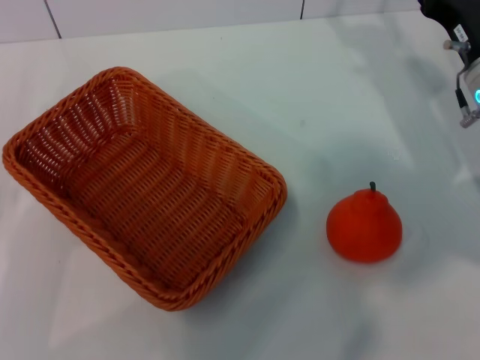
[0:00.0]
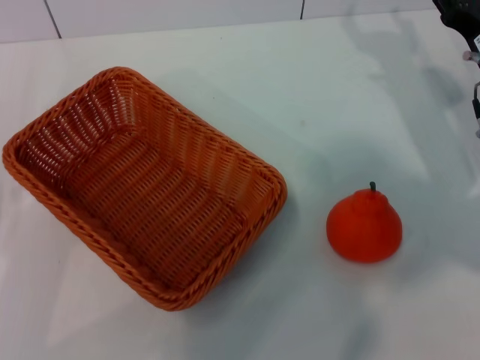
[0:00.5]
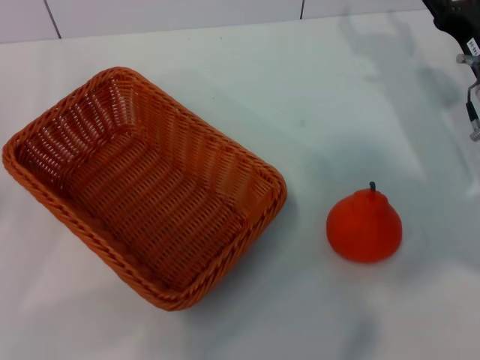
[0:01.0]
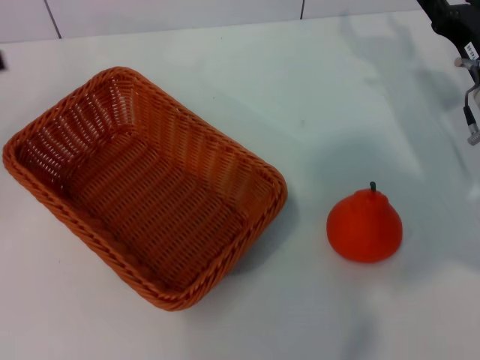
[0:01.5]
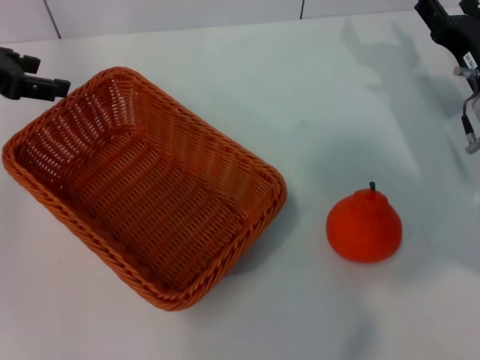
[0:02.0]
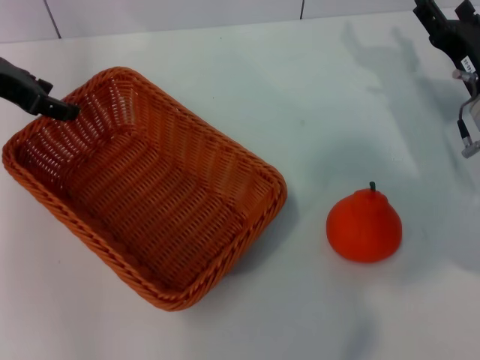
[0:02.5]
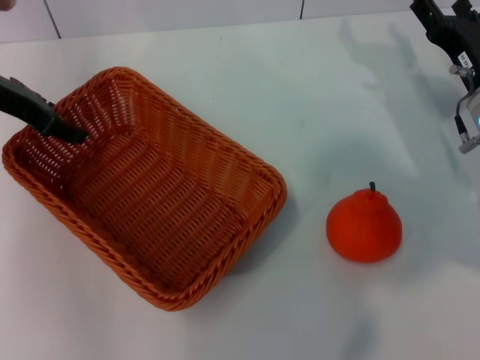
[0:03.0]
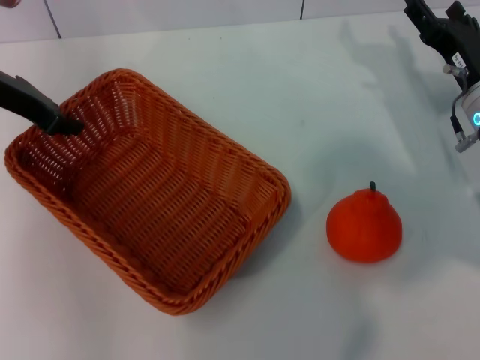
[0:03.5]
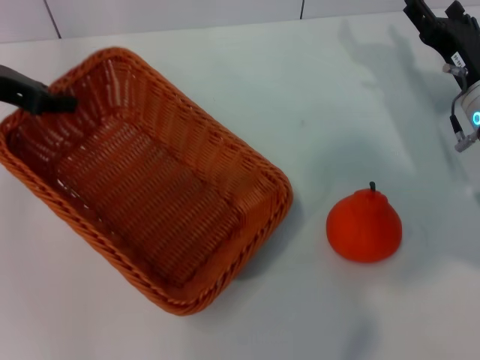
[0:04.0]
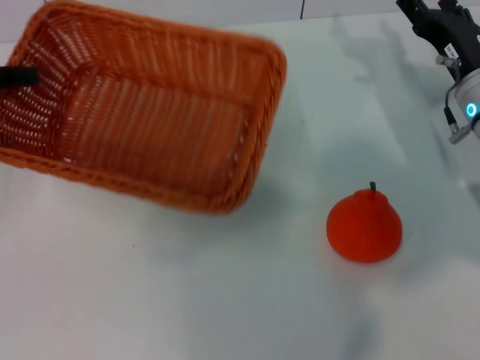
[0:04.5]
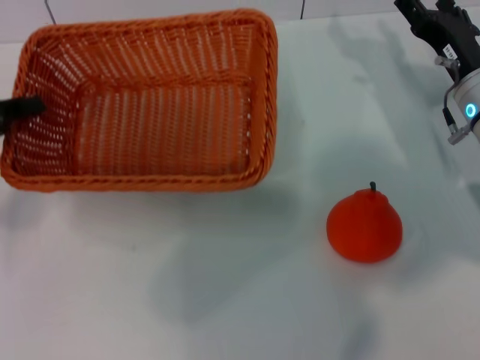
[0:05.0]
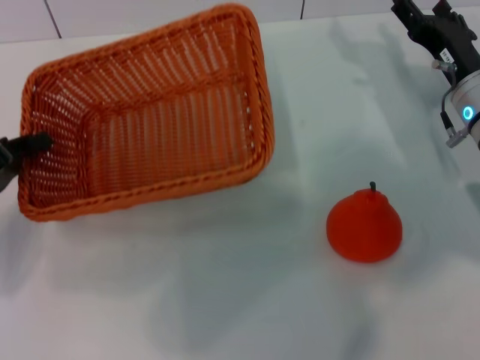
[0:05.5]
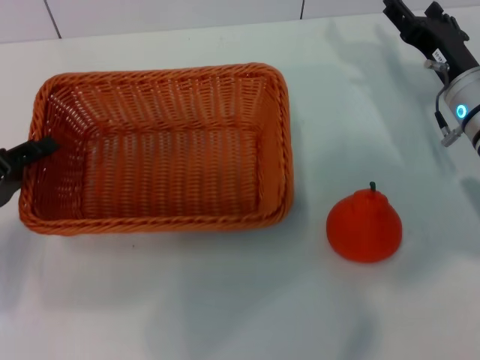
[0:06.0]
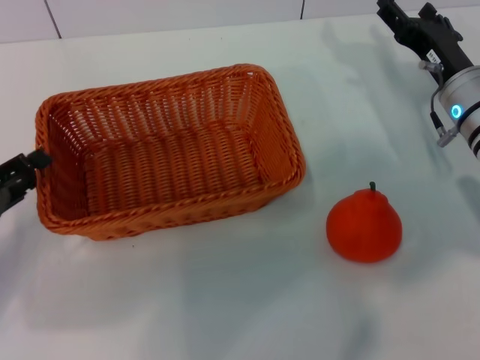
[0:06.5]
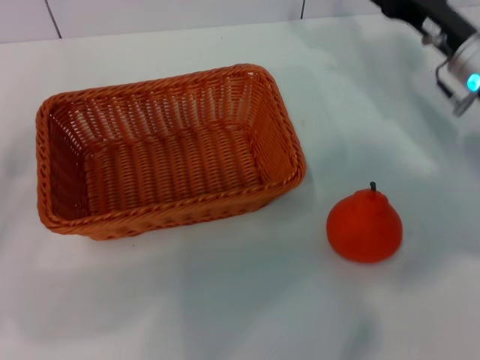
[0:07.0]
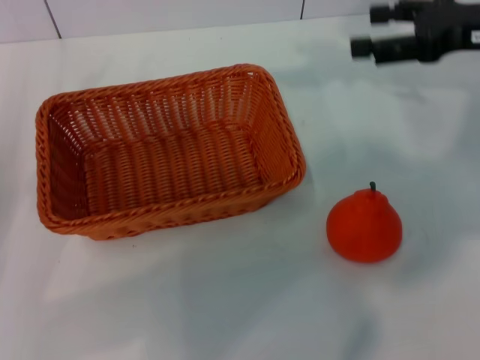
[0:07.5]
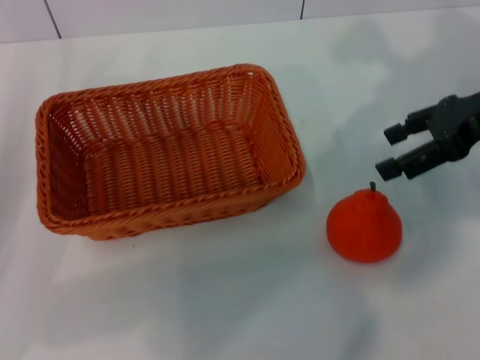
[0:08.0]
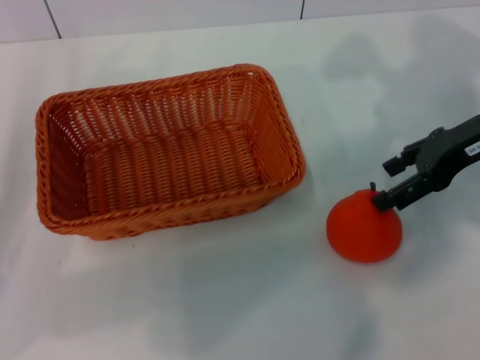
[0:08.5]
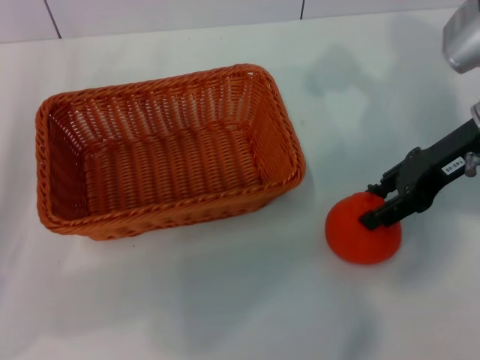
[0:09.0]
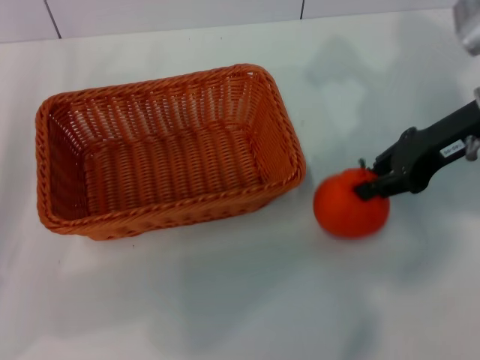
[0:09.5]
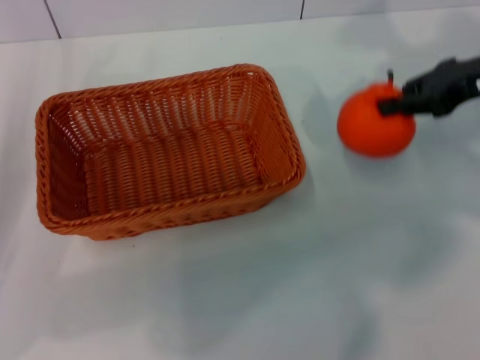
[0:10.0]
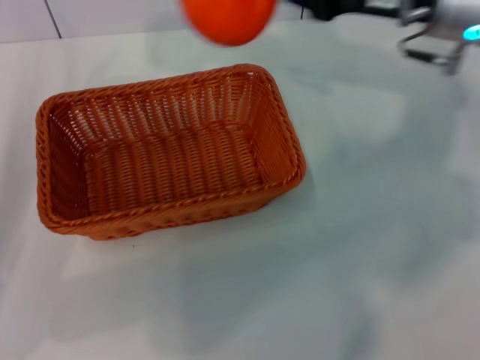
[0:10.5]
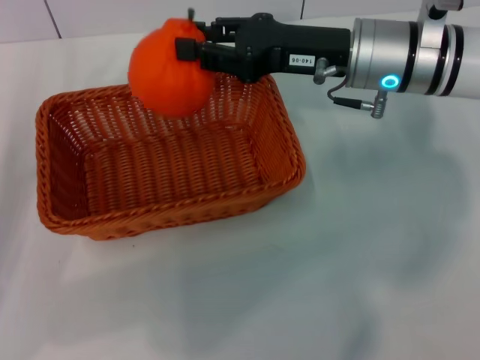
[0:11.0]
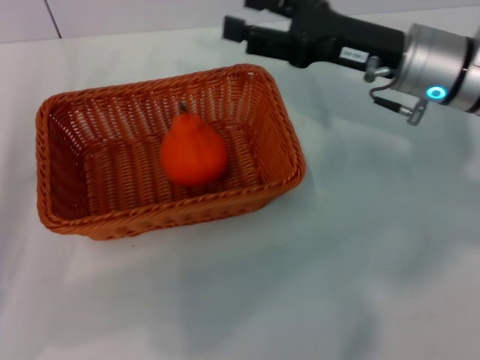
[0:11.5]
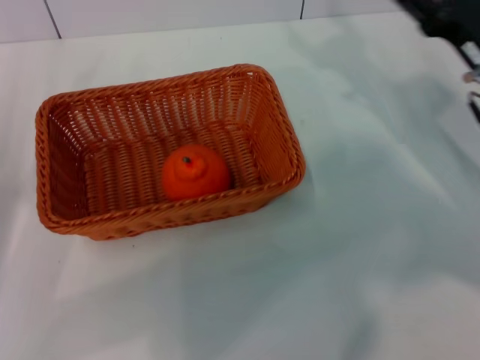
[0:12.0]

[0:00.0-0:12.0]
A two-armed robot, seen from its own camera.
Task of the whole recording: the left gripper pick up the yellow basket and place it horizontally in the middle of the table, the right gripper pick up the orange and place it into the yellow basket.
Step, 0:00.0 to 0:04.0: Pick up the light basket with the left gripper.
Step, 0:04.5 to 0:06.5: Place the light basket in the center of view with the left gripper.
Step, 0:07.0 to 0:09.5: Pick up the orange with the right gripper.
Step, 0:10.0 to 0:11.0: Place the orange into the light basket with the right gripper.
0:00.0 to 0:02.0: The left gripper heads forward and upward, covering some 25 cm.
0:02.0 to 0:04.0: The left gripper closes.
0:04.0 to 0:06.0: The left gripper is displaced backward and downward by roughly 20 cm.
0:06.0 to 0:08.0: The left gripper opens up; the right gripper heads upward, covering about 15 cm.
0:08.0 to 0:10.0: The right gripper closes its fingers.
0:10.0 to 0:12.0: The right gripper travels downward and backward by approximately 10 cm, goes to the left and returns, approximately 15 cm each way, and opens its fingers.
